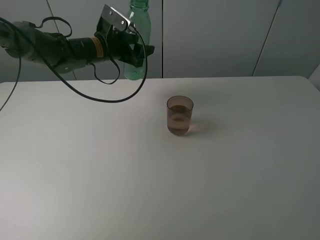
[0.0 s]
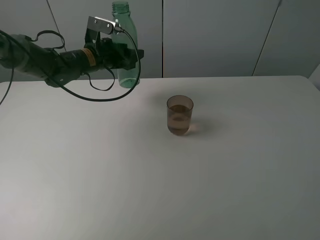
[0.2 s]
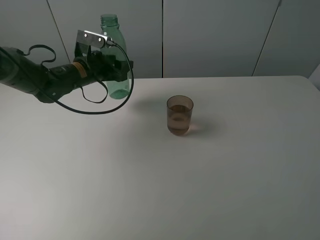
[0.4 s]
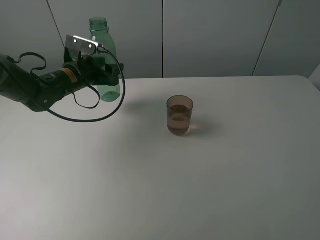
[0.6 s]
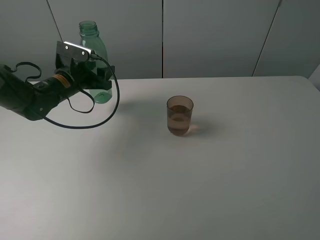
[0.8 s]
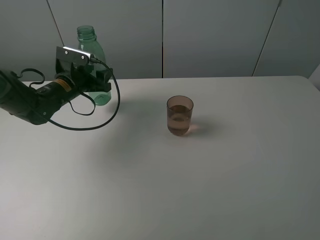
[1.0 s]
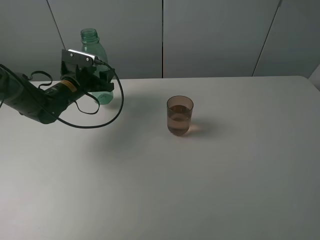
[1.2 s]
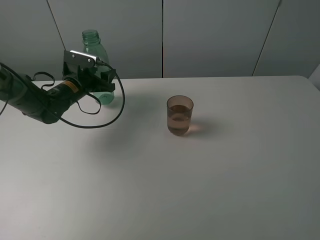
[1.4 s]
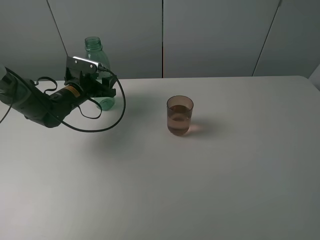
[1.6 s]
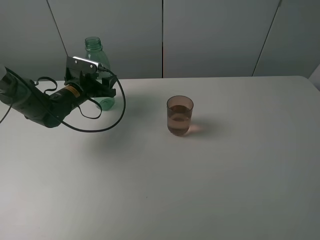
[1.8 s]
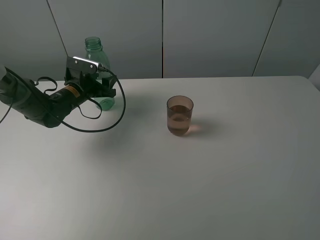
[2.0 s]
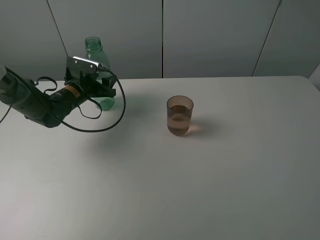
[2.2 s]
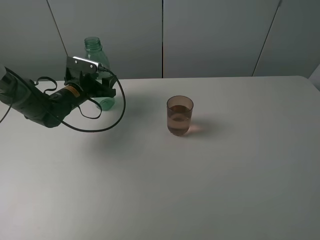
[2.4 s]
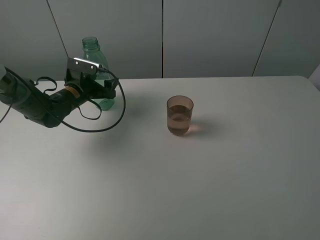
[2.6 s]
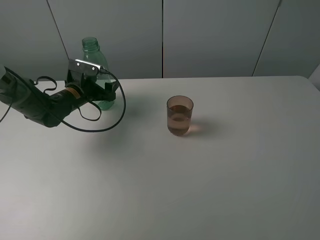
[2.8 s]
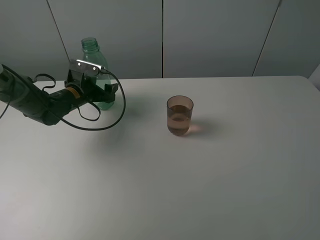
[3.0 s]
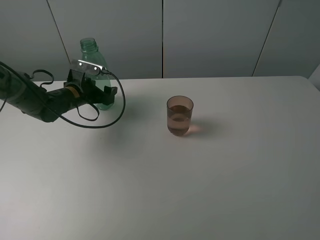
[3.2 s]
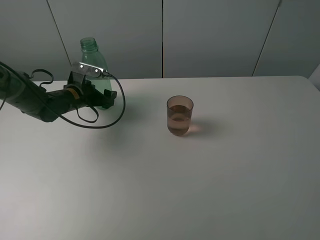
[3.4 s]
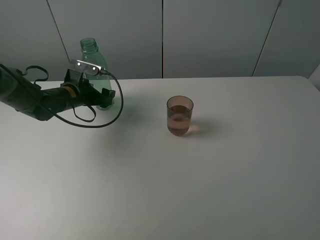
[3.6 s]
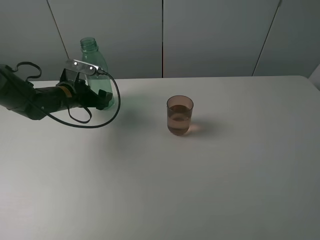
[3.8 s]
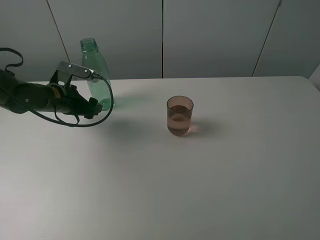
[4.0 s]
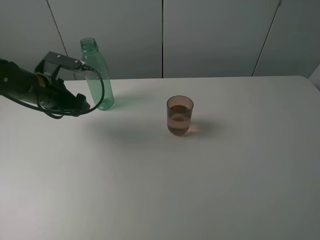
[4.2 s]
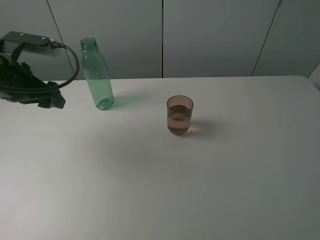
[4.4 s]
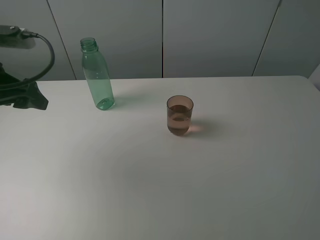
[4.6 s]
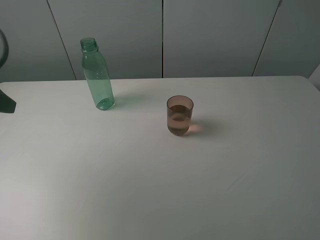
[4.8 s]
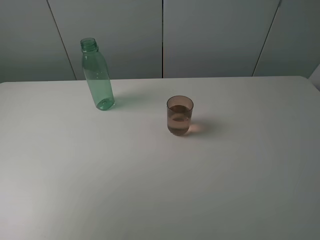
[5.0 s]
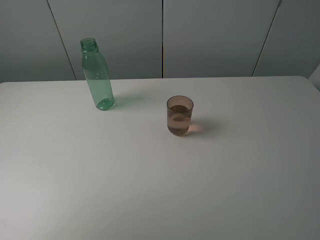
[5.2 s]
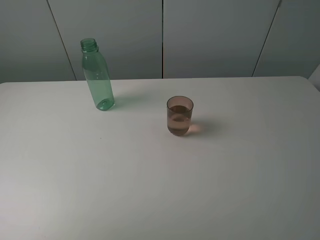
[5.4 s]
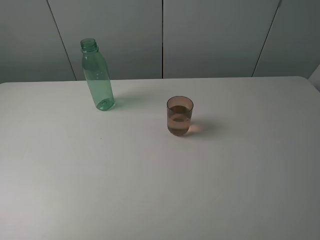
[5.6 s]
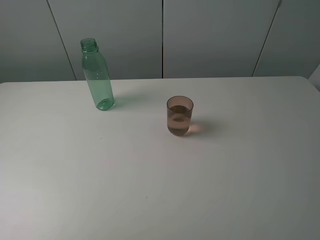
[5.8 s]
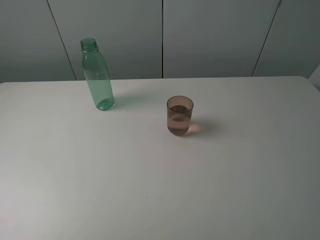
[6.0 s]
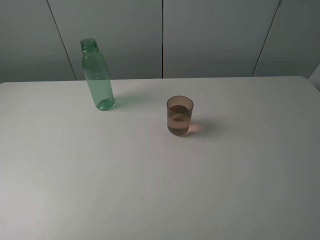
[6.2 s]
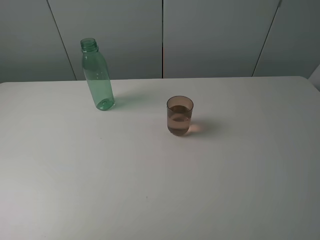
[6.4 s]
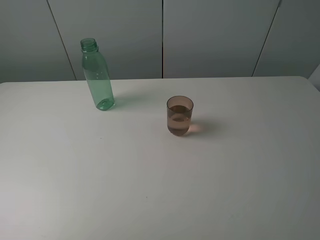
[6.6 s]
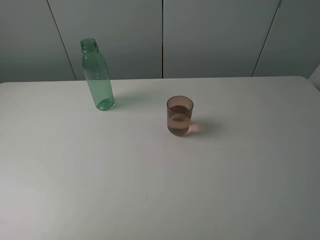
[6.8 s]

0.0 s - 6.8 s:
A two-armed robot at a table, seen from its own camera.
Task of the whole recording: pick up the bottle filled with water and pour it into the pink cup.
Step, 0.0 s - 3.4 s: Place the green bottle with the left gripper.
0.0 s - 1.4 s: The left gripper is displaced downward and to the left by some 15 cm.
1.4 s - 2.8 s: The left gripper opens up.
2.8 s - 4.0 s: The left gripper changes place by some 5 cm.
4.0 s - 5.4 s: The left gripper goes approximately 35 cm backward and upward.

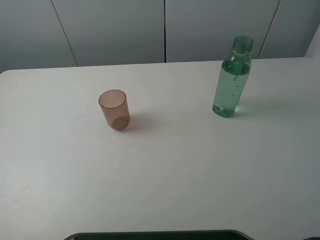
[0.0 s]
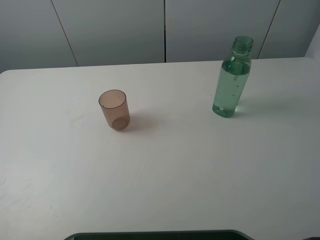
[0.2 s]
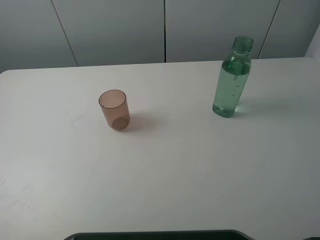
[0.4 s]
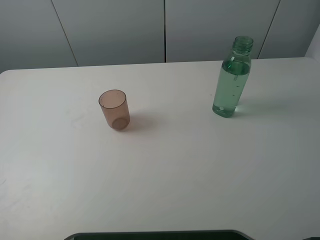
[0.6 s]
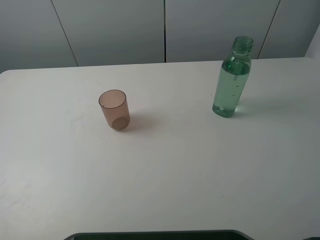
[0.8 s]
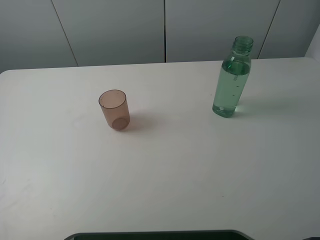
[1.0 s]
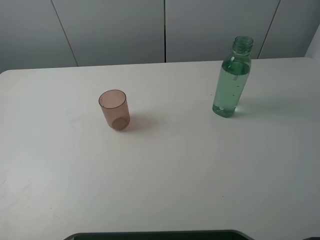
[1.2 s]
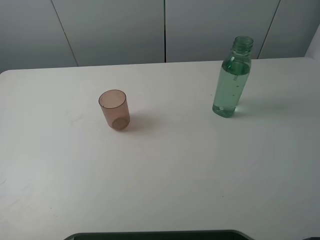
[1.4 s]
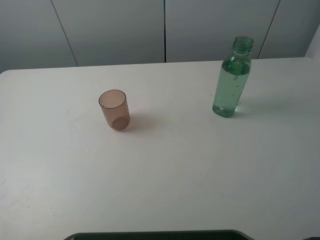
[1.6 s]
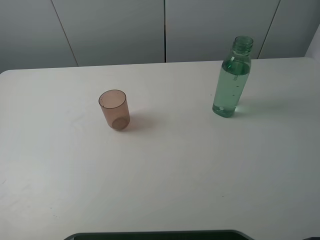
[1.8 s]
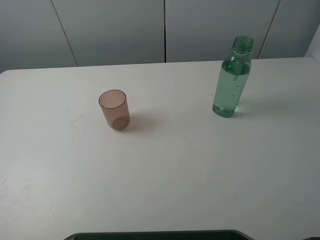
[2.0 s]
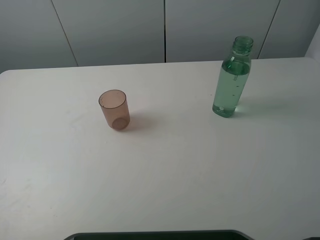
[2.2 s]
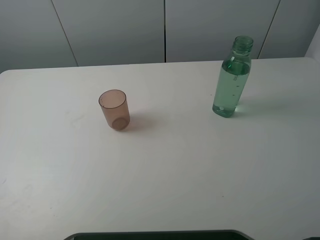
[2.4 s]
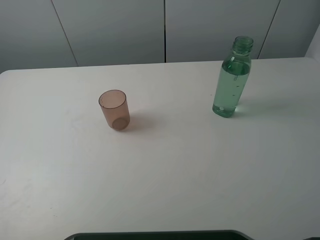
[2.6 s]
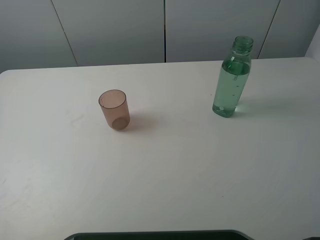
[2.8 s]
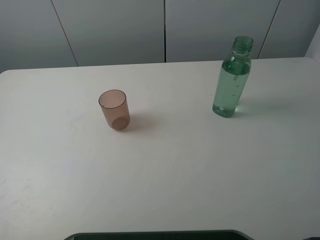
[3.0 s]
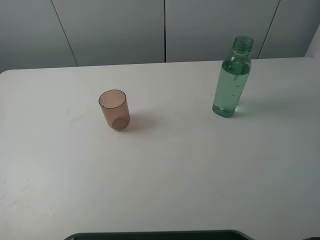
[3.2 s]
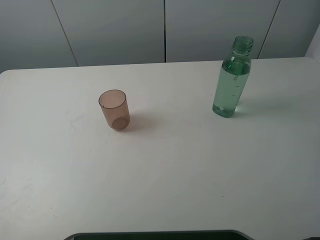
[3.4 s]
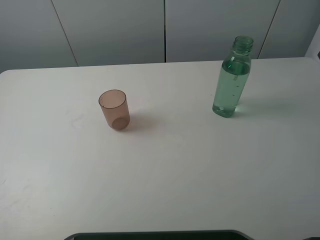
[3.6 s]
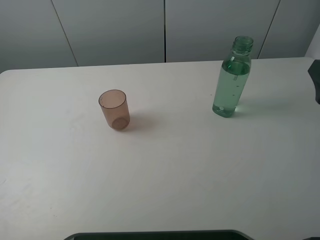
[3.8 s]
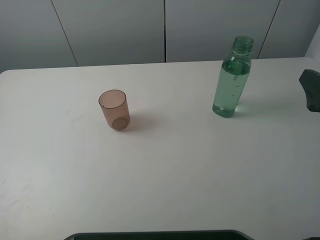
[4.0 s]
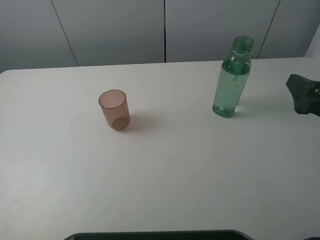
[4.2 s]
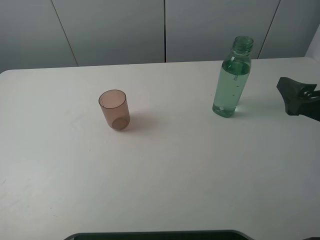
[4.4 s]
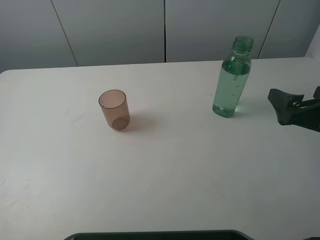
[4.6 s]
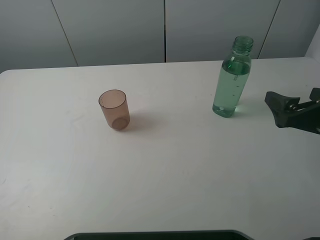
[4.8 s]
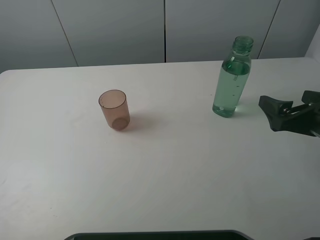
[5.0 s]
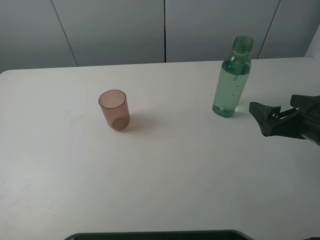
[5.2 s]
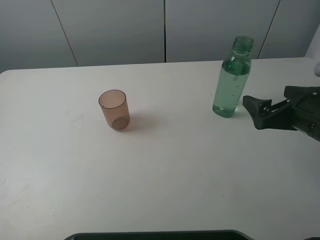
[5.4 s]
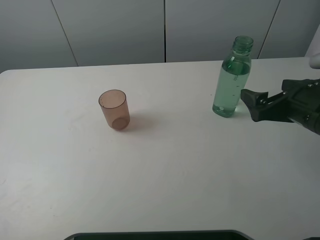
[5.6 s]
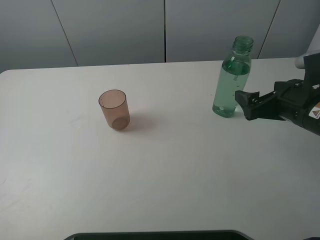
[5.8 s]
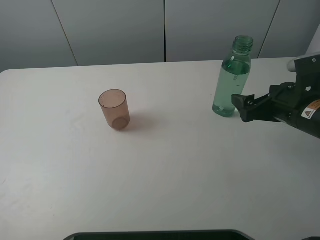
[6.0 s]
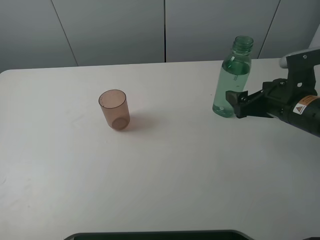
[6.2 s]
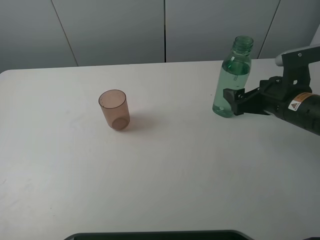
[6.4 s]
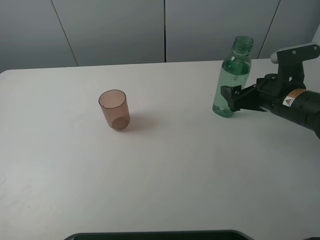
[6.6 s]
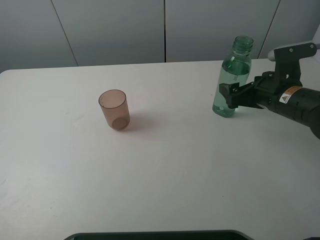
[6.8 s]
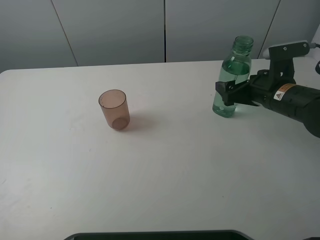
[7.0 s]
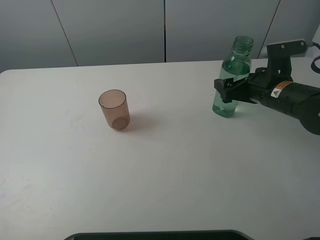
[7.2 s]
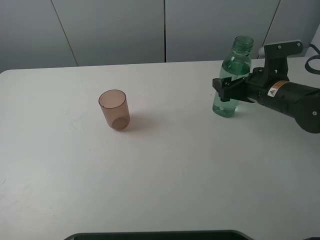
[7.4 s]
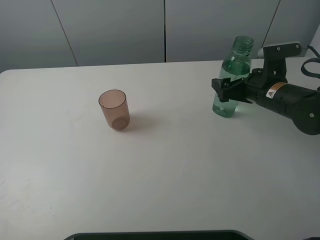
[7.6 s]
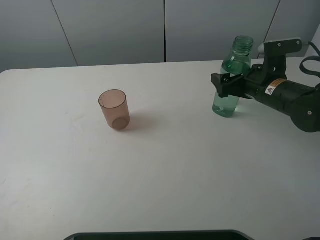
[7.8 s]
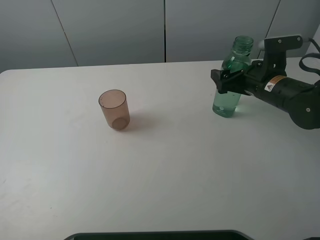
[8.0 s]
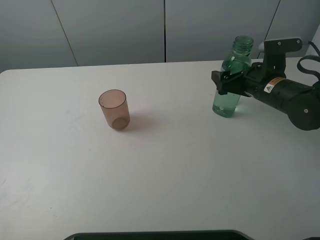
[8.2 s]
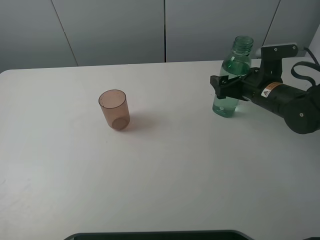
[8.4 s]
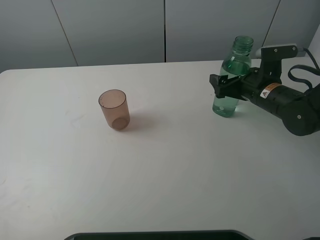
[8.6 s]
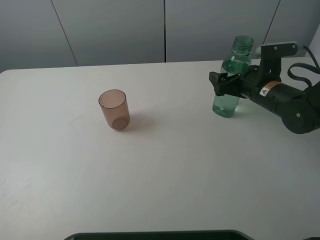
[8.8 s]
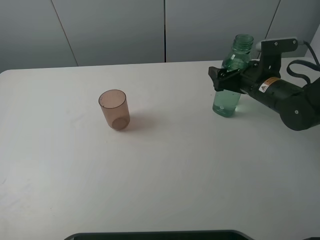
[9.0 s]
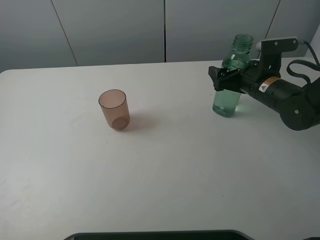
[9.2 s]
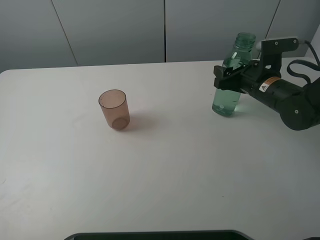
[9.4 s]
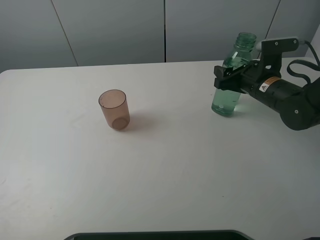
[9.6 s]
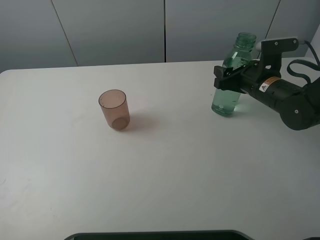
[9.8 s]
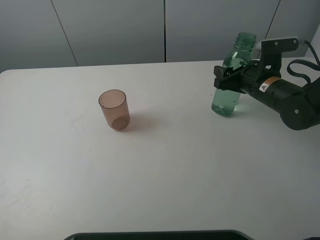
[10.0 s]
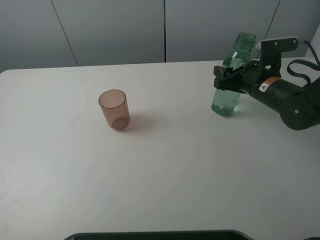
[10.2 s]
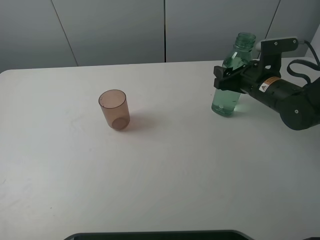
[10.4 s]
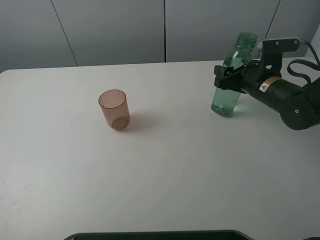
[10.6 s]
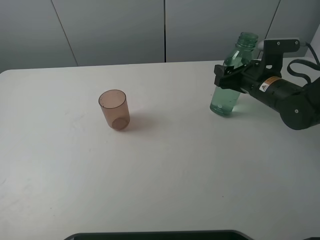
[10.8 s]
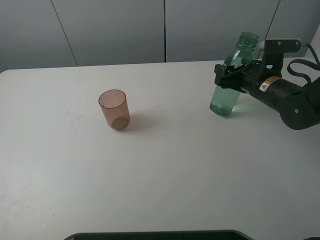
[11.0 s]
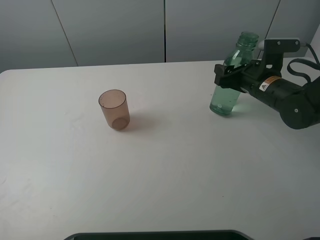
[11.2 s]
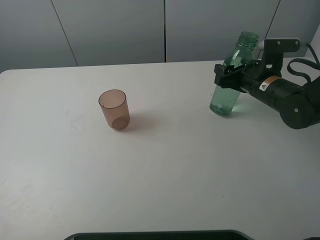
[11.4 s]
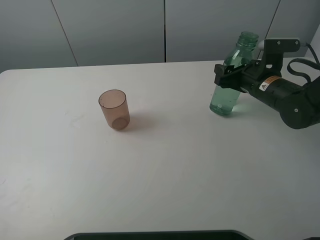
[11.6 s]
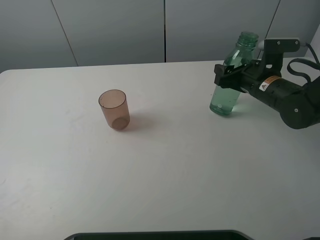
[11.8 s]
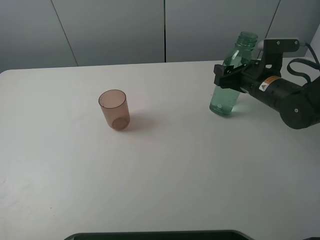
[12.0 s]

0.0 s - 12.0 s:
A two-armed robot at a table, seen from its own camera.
Task of the whole recording: pick up the bottle filled with water and pour it into the pink cup.
Step, 0.0 s - 9.8 s: Grasp the green bottle with the right gripper.
0.0 s - 1.6 s: Both grippers stay put.
3.0 s - 4.4 s: The right gripper is displaced downward by roughly 10 cm.
4.4 s - 6.0 s: The right gripper goes about 5 cm forward.
6.0 s - 7.6 s: The right gripper goes approximately 5 cm forward.
7.6 s - 9.0 s: The grippers stay close to where they were, moving slightly.
10.4 s - 12.0 s: Both grippers stay about where they are.

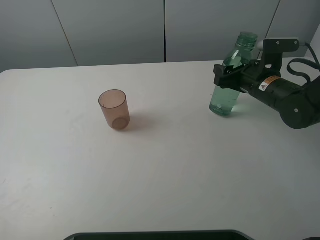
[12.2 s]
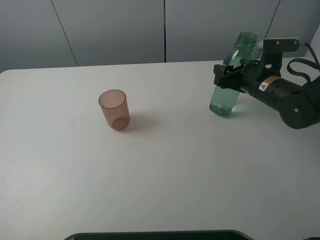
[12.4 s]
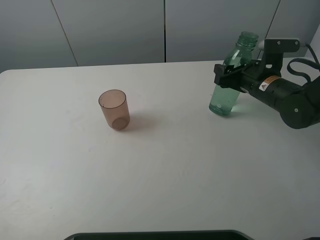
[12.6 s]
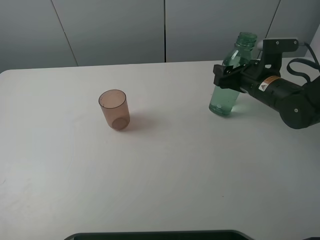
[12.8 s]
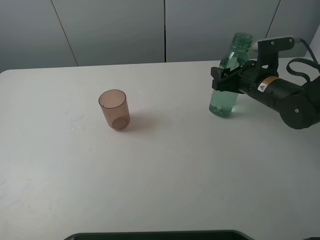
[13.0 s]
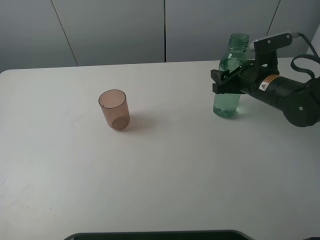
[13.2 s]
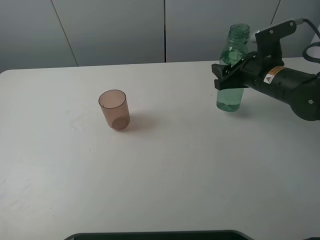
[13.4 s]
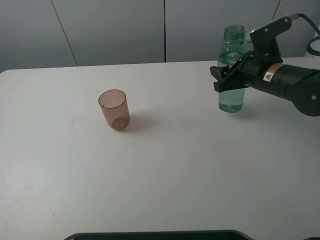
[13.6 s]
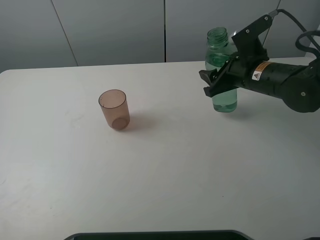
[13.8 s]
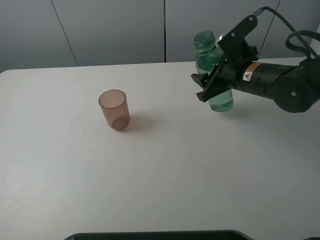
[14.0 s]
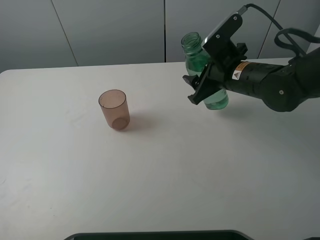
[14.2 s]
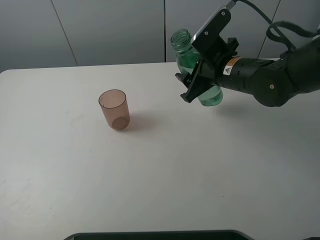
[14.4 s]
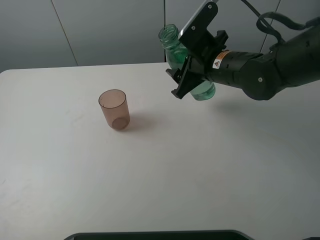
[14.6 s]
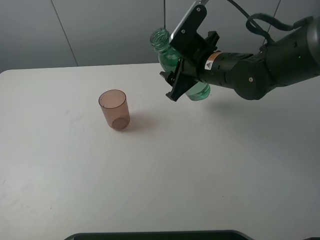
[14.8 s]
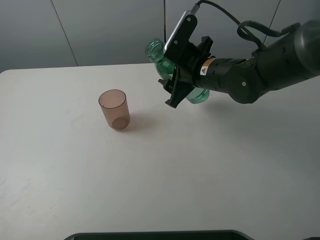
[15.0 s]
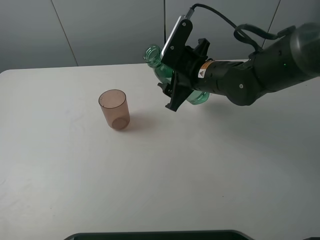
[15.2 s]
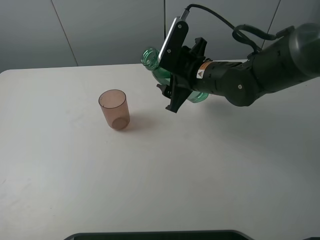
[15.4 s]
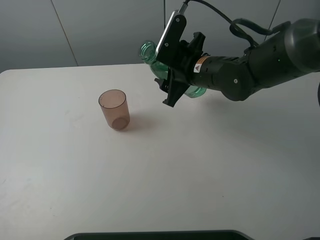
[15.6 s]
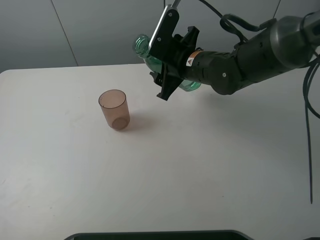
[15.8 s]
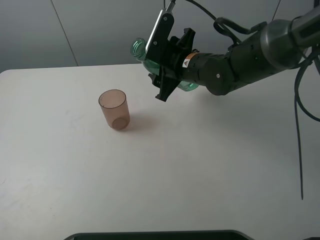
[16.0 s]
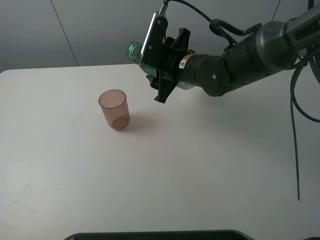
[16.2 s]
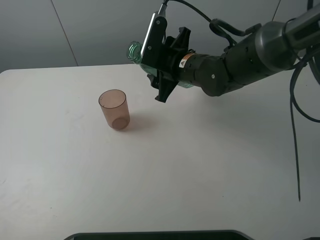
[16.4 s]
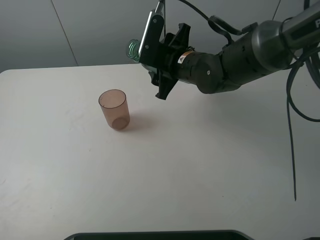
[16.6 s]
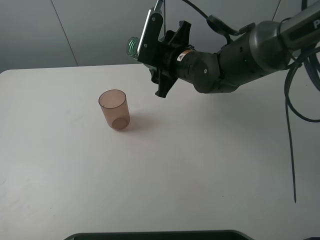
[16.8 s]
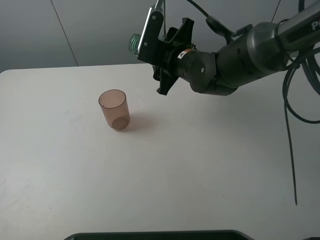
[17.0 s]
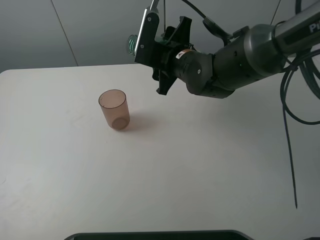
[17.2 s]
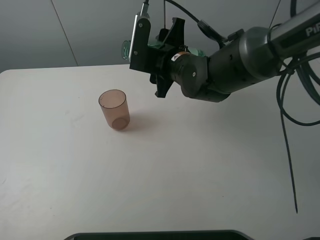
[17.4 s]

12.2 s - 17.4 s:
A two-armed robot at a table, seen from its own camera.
Task of the whole recording: pick up the bottle filled with water and pour it into the pink cup.
12.2 s - 14.0 s: The right gripper moves to the left, approximately 5 cm.
14.0 s - 15.6 s: The right gripper heads to the left, covering roughly 10 cm.
